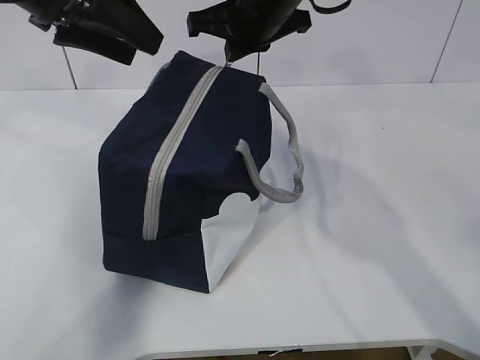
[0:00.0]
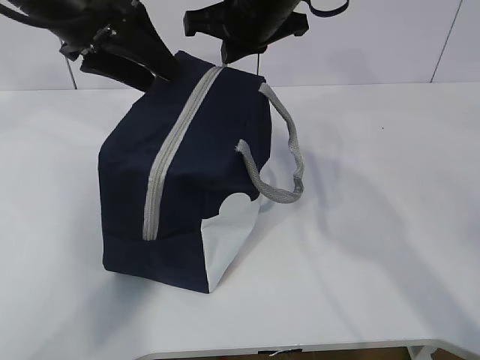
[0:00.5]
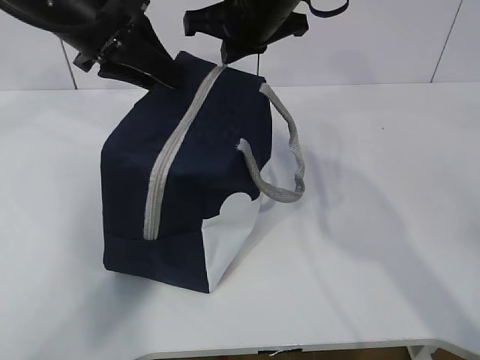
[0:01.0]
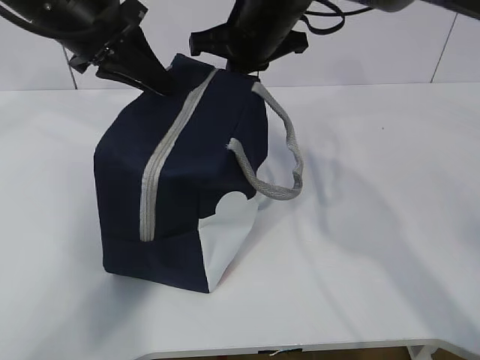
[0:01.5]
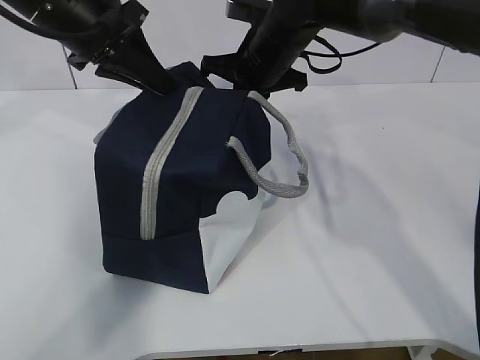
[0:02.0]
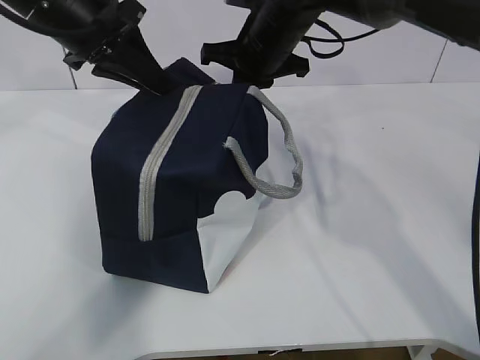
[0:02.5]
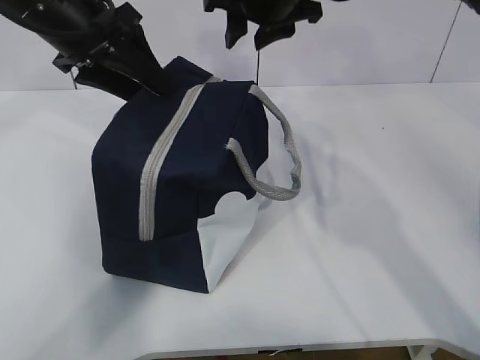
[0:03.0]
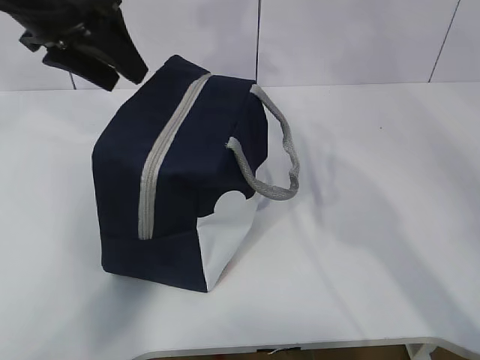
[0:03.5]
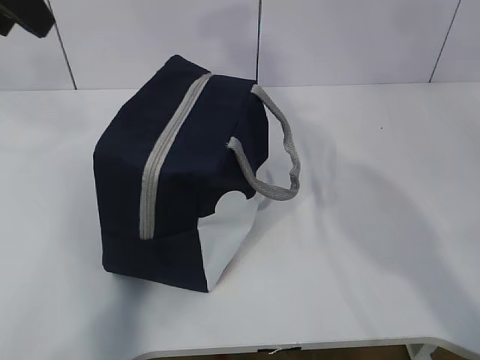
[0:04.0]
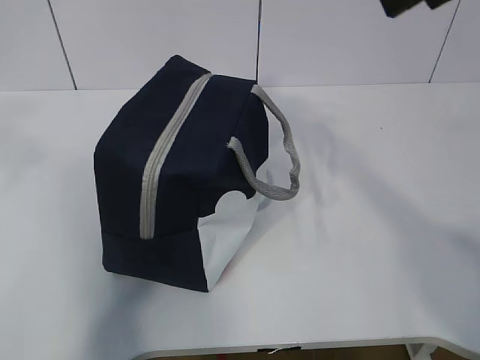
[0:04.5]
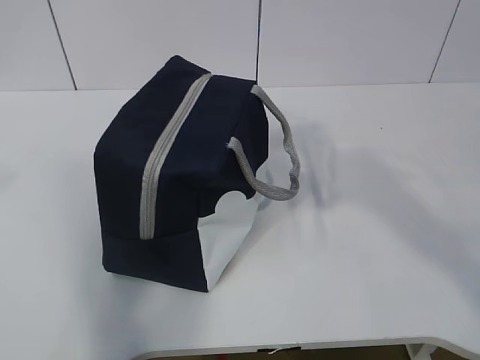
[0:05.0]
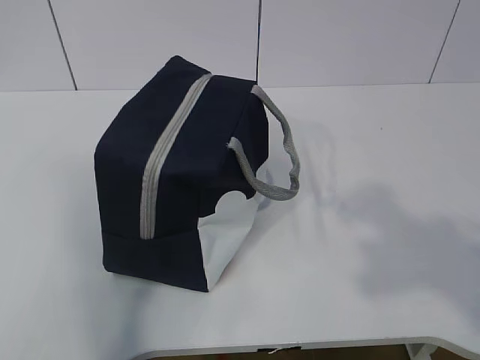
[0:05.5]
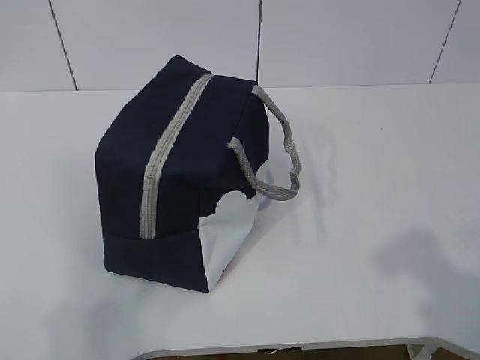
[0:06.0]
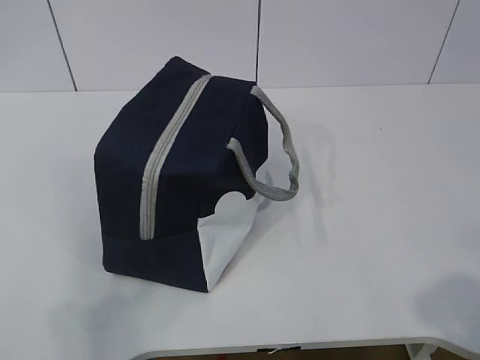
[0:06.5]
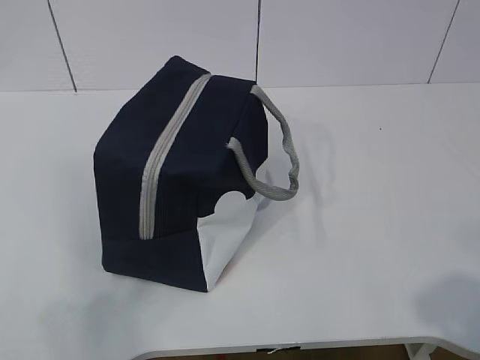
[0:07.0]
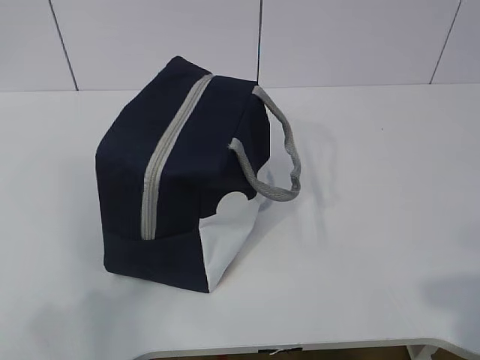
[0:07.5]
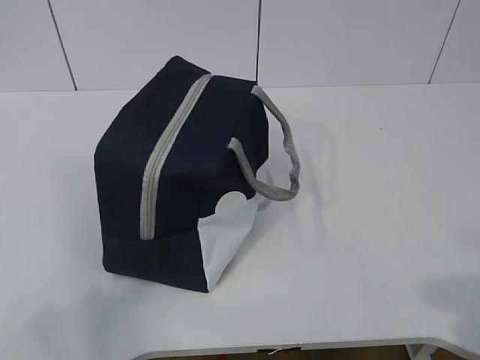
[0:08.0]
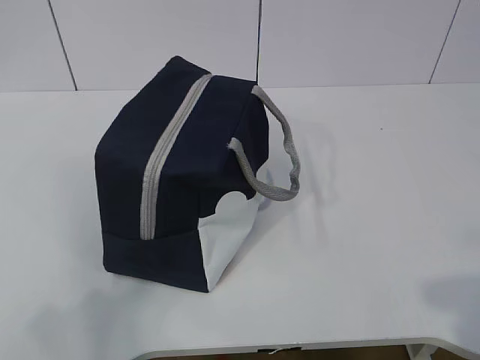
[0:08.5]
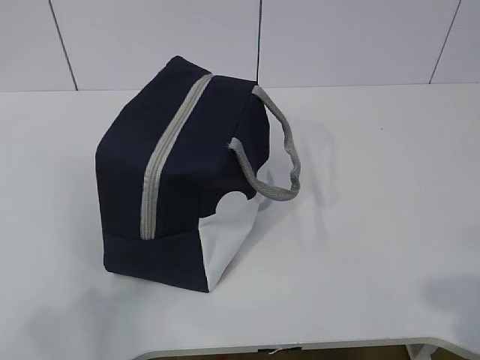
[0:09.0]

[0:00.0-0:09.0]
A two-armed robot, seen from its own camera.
0:00.0 to 0:02.0: The two grippers go roughly 5 cm downward. The left gripper closes its fingers.
0:02.0 to 0:04.5: The right gripper moves backward, upward and to the right, some 30 cm, and opens up, while the left gripper moves backward, upward and to the left, about 25 cm, and opens its fingers.
0:04.5 to 0:07.0: The right gripper moves backward, downward and to the right, roughly 35 cm. The left gripper is displaced backward and downward by some 25 cm.
0:07.0 to 0:09.0: The grippers make only small movements.

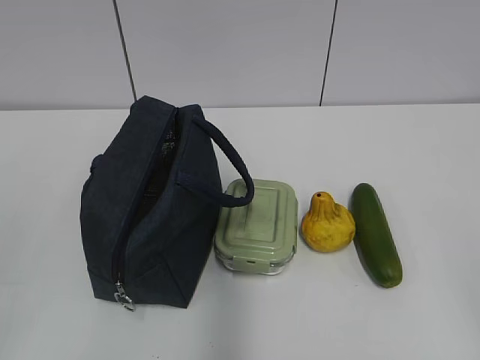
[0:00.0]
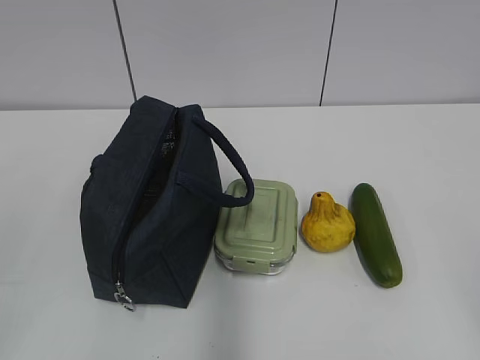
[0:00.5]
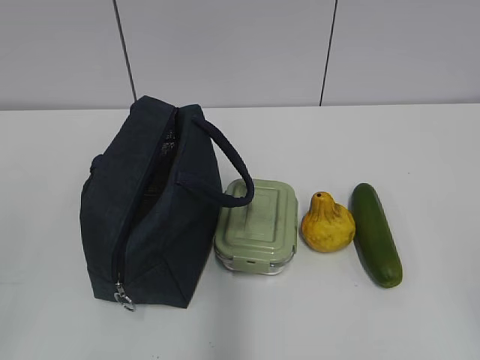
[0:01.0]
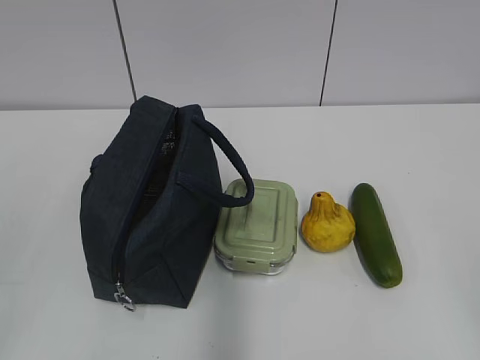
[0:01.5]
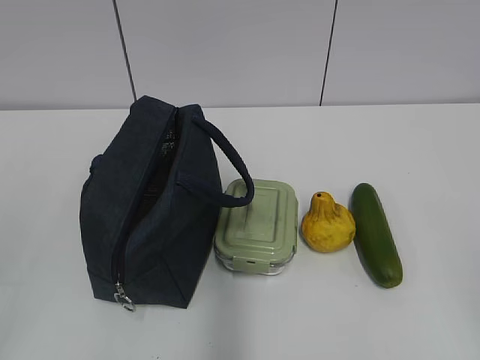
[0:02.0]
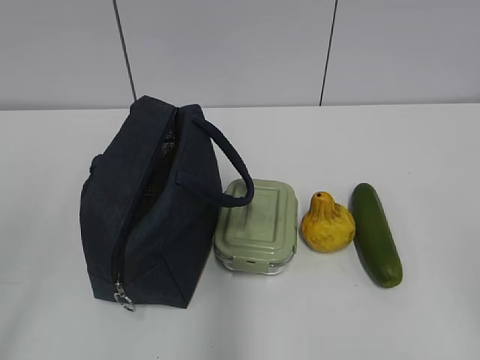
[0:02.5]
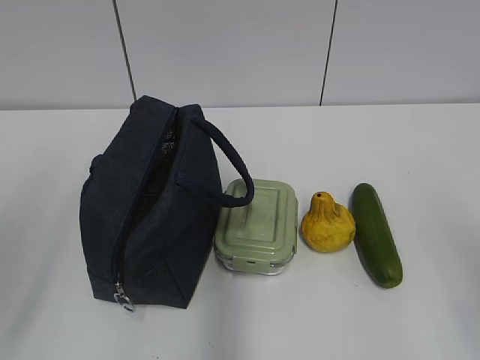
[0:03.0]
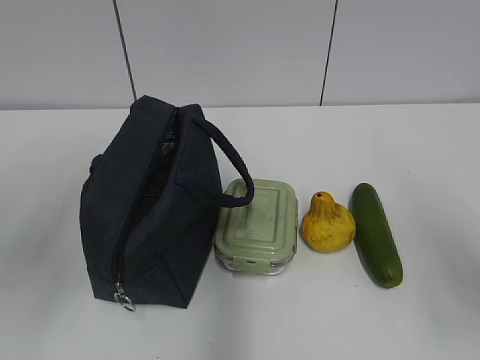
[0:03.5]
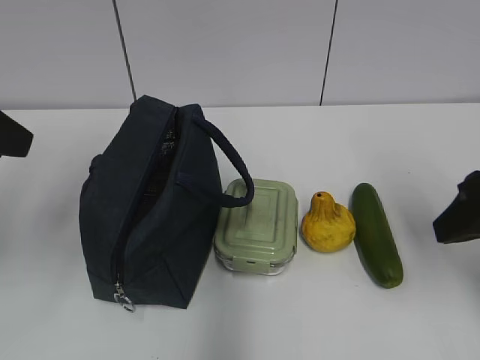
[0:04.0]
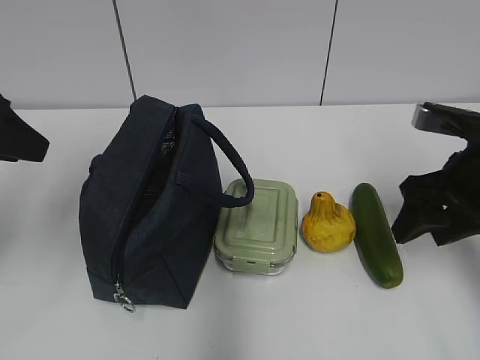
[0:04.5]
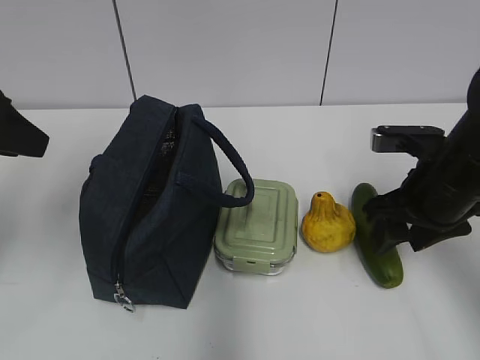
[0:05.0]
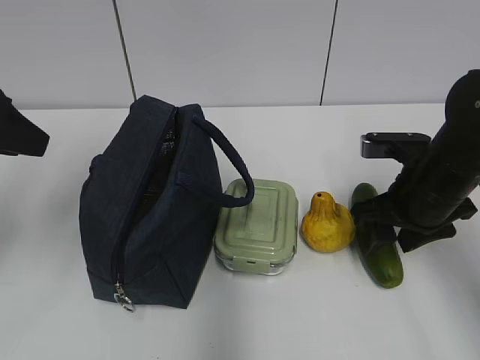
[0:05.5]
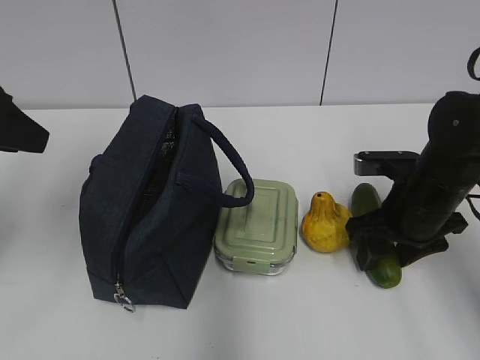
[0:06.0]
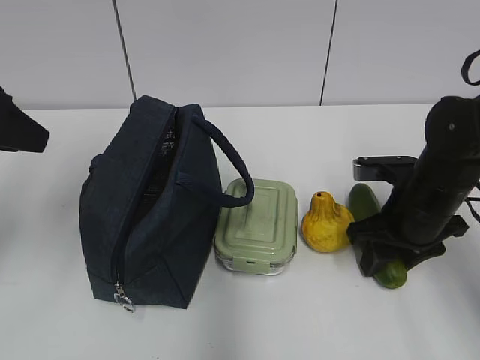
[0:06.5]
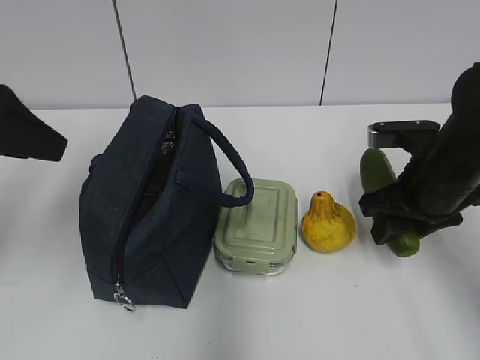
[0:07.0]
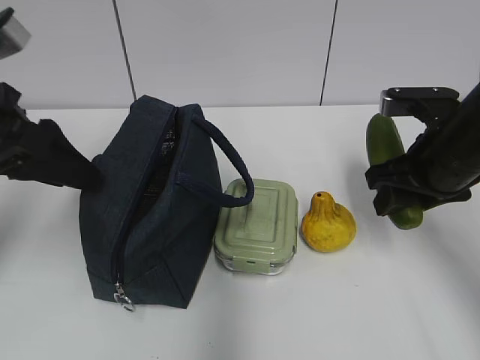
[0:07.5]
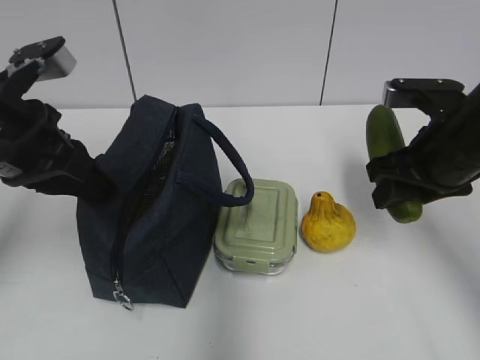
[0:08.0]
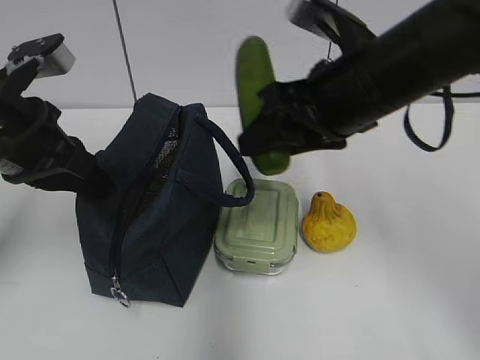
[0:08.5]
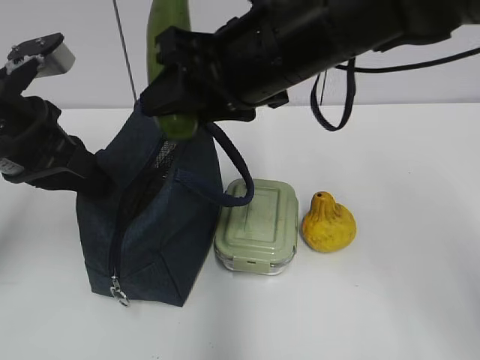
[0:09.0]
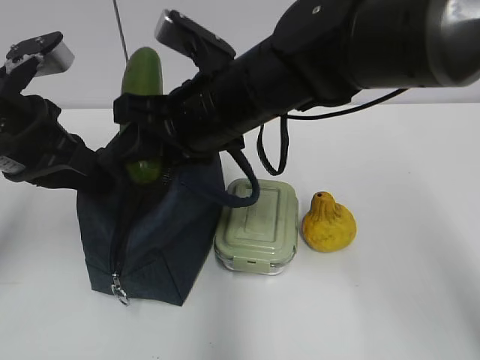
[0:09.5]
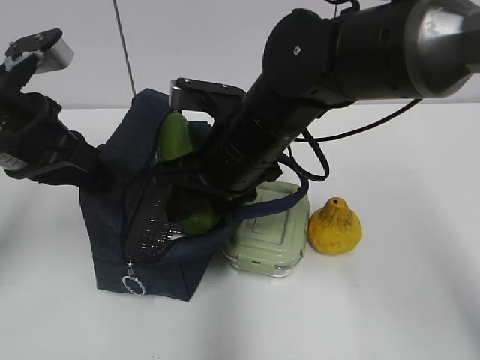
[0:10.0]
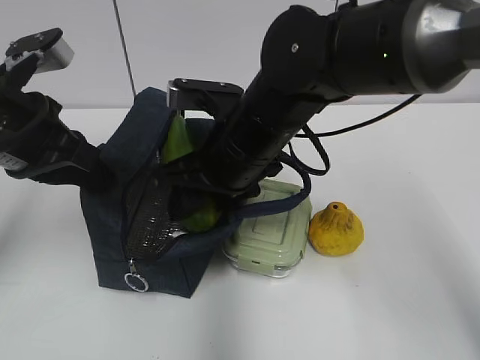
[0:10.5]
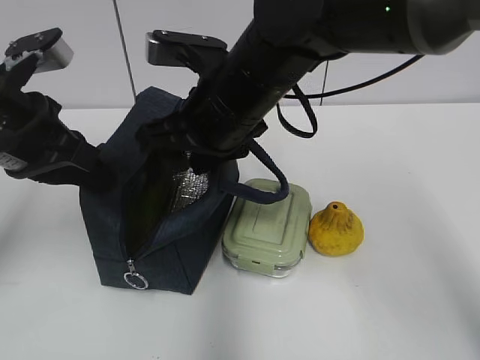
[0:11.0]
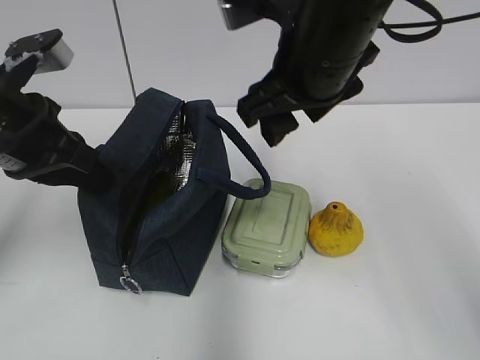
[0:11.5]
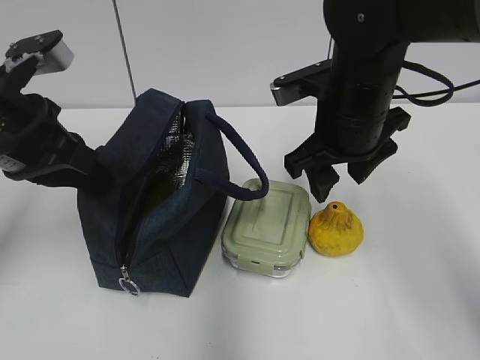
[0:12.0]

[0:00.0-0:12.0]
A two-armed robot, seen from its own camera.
Step, 0:00.0 to 0:06.0: Grab the cucumber with your right hand.
Step, 0:06.5 to 0:09.0: Grab the lunch bag with your left hand.
Step, 0:10.0 to 0:10.5: Place it into the bag with your right hand.
0:02.0 to 0:04.0: Both grippers move forward, some 25 cm.
0:04.0 to 0:06.0: The right gripper moves downward and forward, about 15 cm.
0:06.0 to 0:08.0: The right gripper goes some 10 cm upward; the left gripper shifts about 5 cm downward, and closes its fingers.
0:08.0 to 0:10.0: The right gripper heads to the left, covering roughly 20 cm.
0:10.0 to 0:12.0: The right gripper is displaced to the right by some 10 cm.

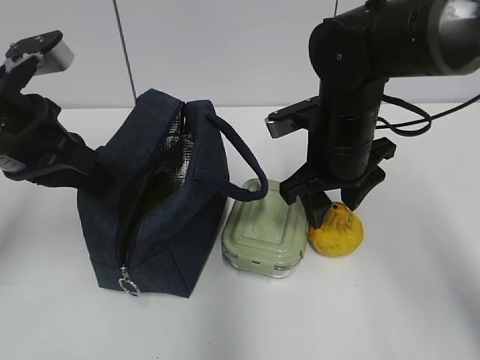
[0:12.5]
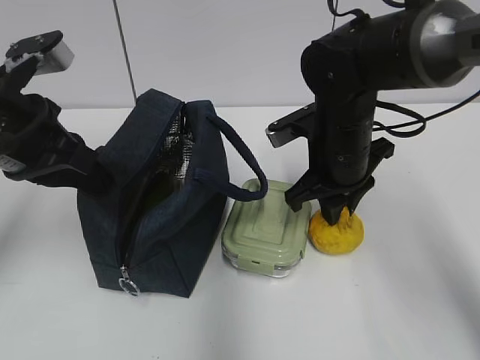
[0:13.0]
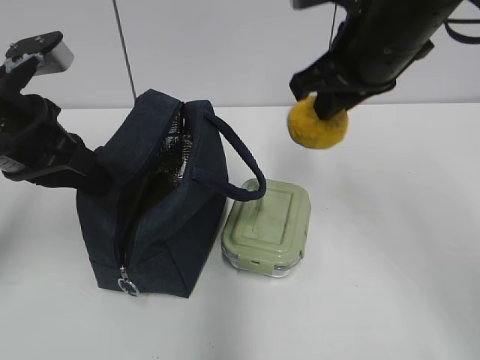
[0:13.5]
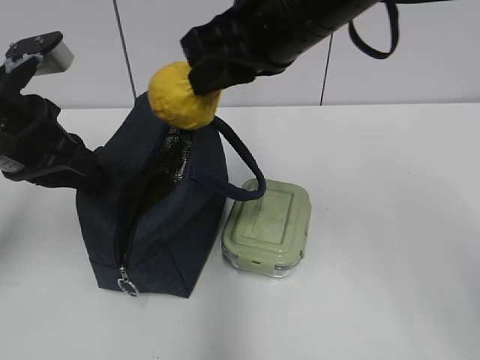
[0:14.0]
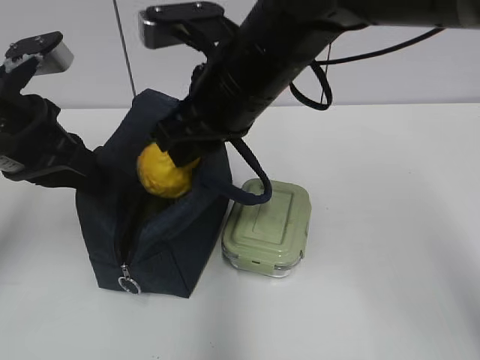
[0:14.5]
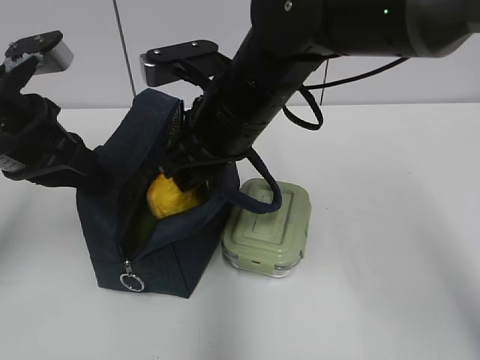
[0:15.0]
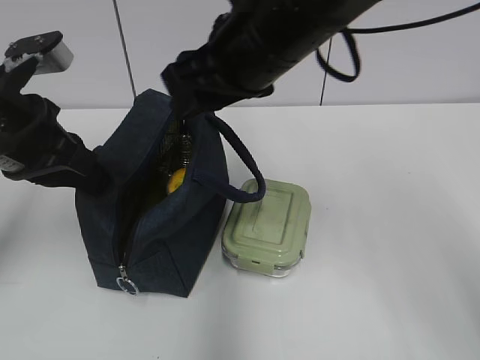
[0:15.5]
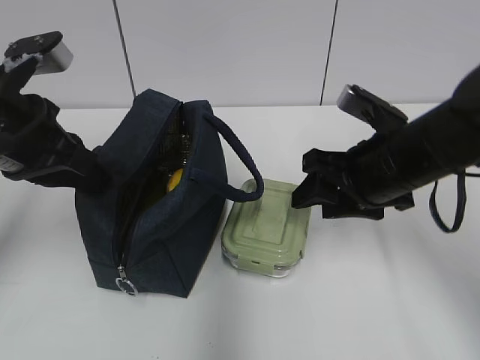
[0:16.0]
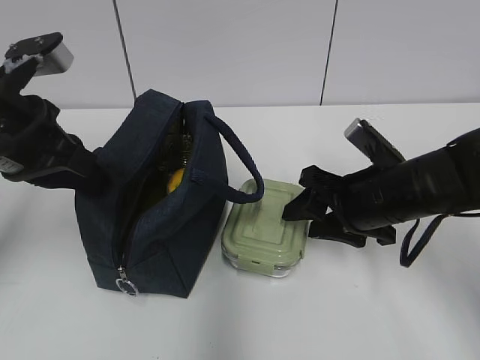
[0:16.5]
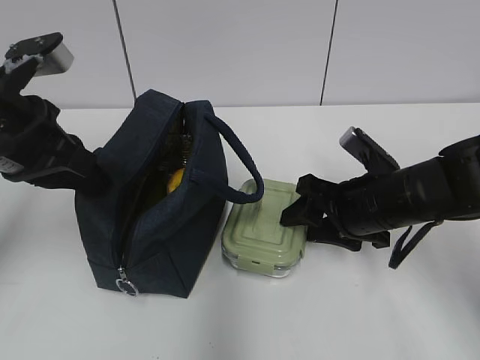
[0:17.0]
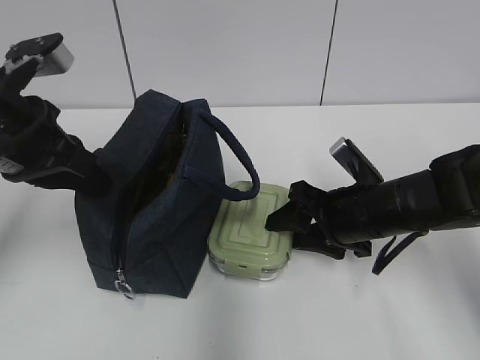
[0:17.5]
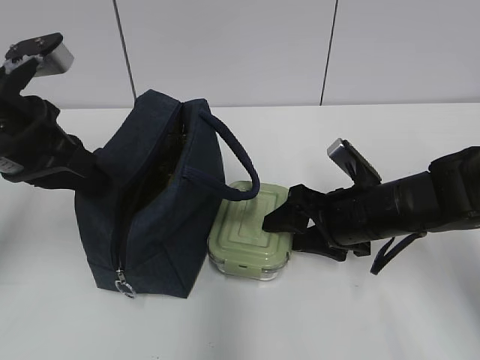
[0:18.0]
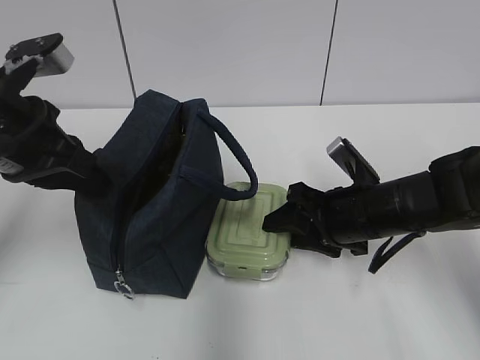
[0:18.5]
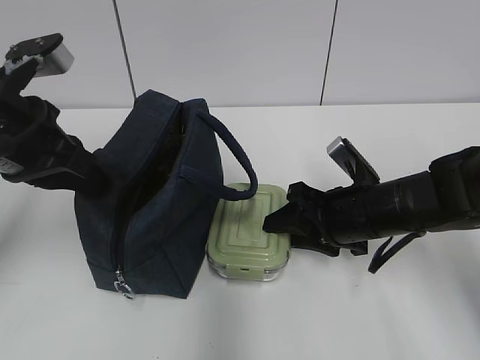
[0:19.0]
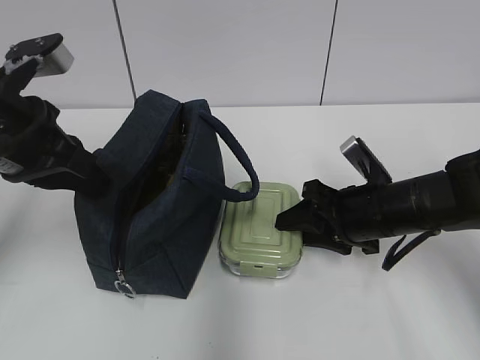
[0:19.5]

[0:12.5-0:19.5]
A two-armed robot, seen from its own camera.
Step, 0:13.0 to 0:15.0: Place it into the bag with your right hand.
0:12.5 to 0:14.5: The right gripper shifts roughly 15 cm to the left and upward, and closes.
0:14.5 to 0:16.0: The right gripper shifts approximately 15 cm to the right and downward, and opens its fingers.
0:16.0 to 0:17.5: The right gripper is displaced downward by roughly 10 cm.
0:17.5 to 0:19.5: The grippers stay close to where they were, moving slightly.
